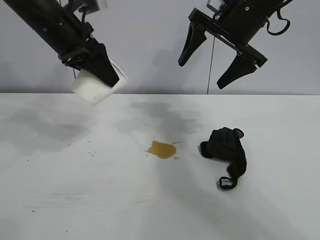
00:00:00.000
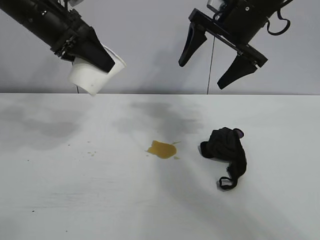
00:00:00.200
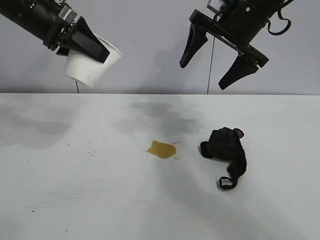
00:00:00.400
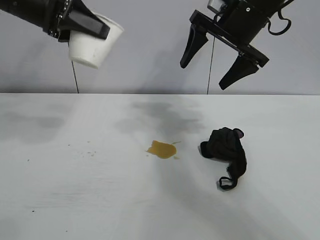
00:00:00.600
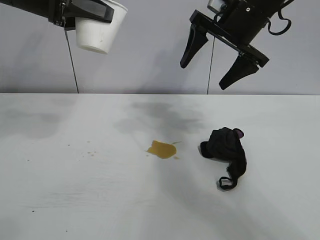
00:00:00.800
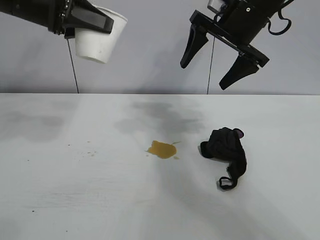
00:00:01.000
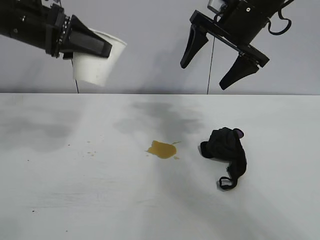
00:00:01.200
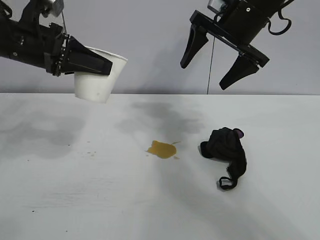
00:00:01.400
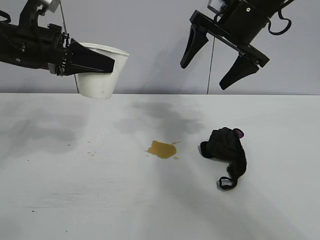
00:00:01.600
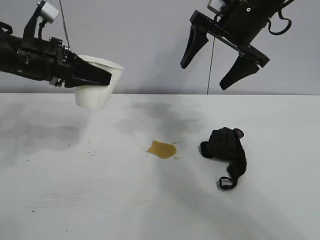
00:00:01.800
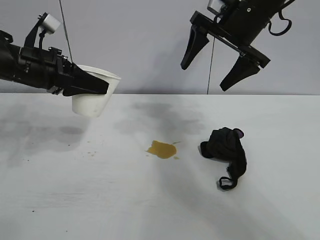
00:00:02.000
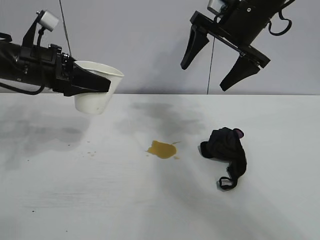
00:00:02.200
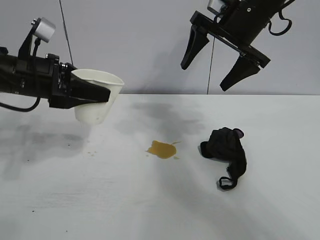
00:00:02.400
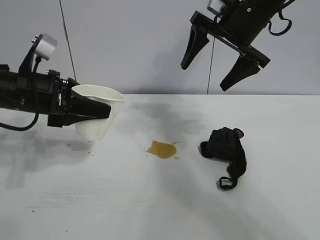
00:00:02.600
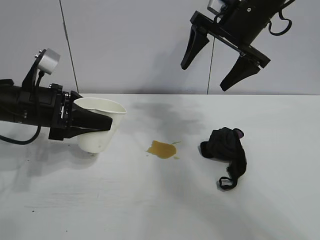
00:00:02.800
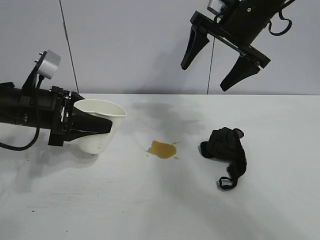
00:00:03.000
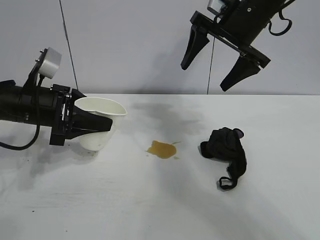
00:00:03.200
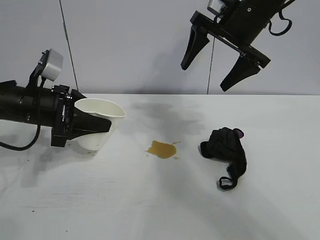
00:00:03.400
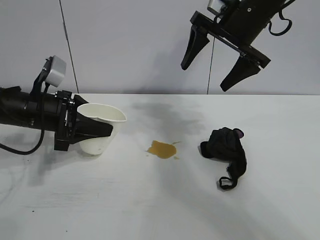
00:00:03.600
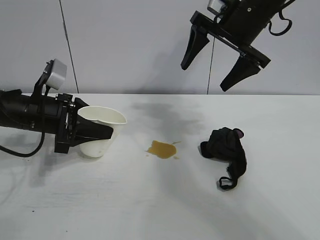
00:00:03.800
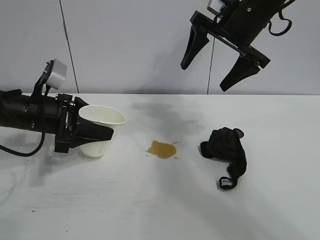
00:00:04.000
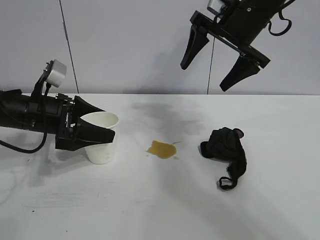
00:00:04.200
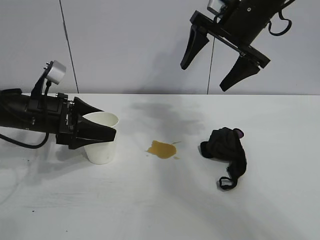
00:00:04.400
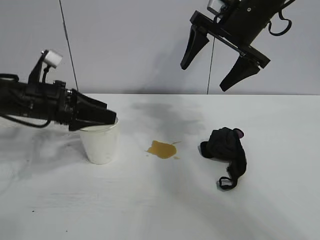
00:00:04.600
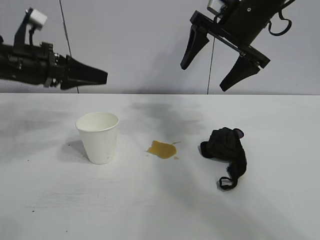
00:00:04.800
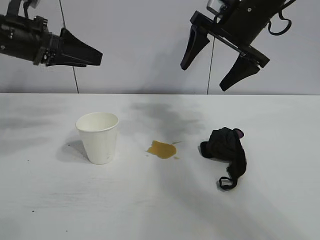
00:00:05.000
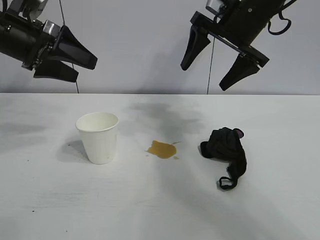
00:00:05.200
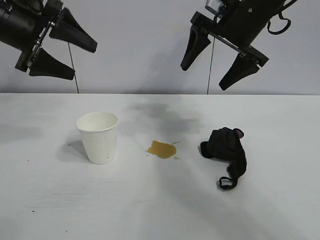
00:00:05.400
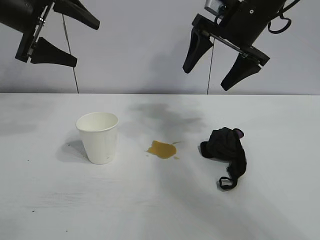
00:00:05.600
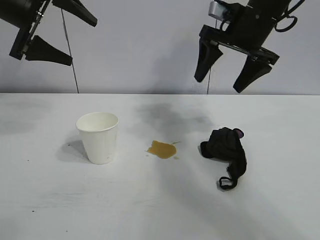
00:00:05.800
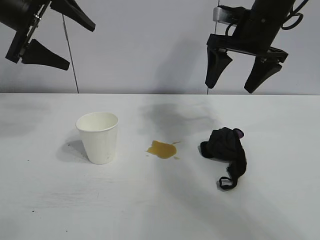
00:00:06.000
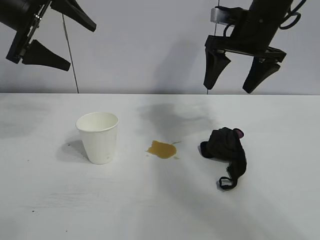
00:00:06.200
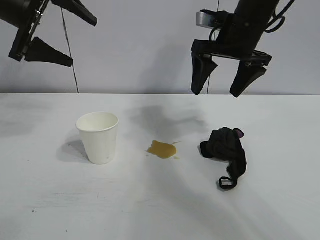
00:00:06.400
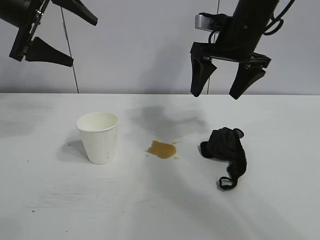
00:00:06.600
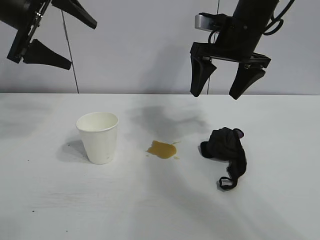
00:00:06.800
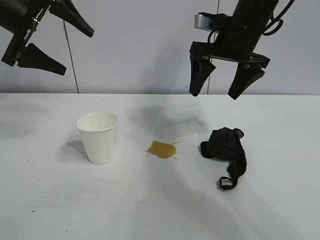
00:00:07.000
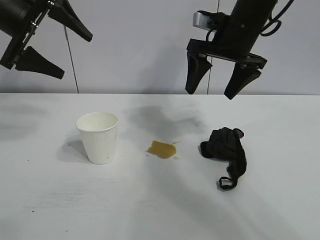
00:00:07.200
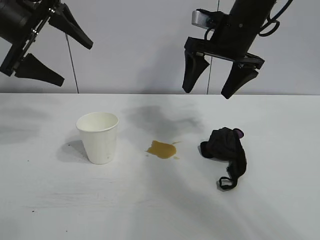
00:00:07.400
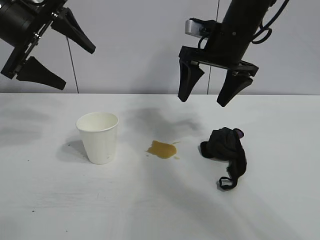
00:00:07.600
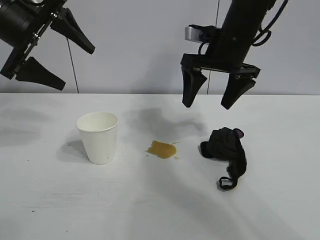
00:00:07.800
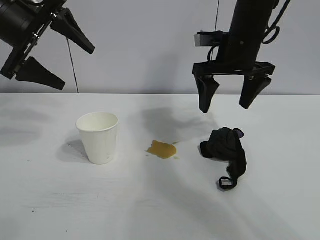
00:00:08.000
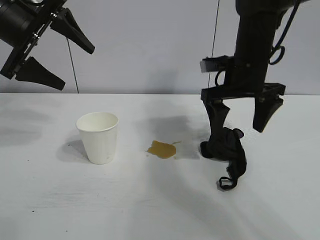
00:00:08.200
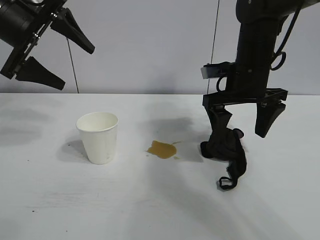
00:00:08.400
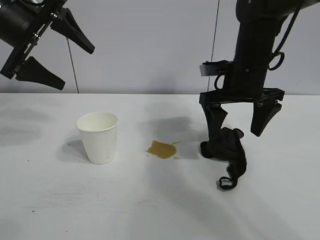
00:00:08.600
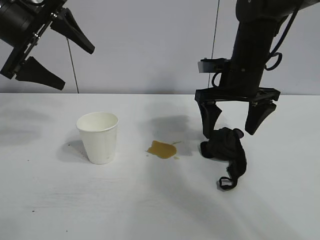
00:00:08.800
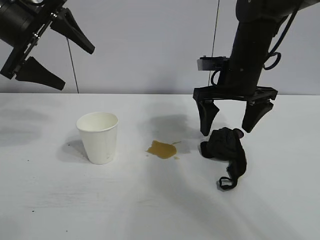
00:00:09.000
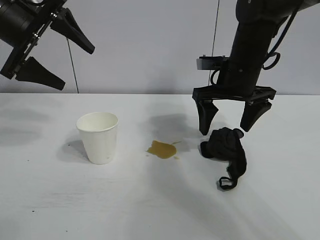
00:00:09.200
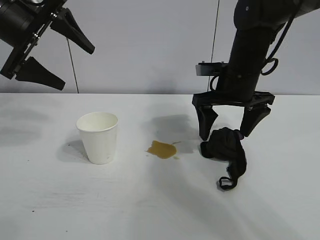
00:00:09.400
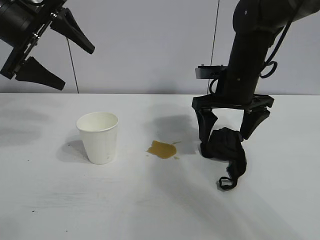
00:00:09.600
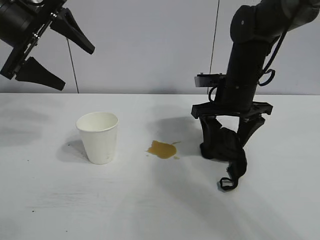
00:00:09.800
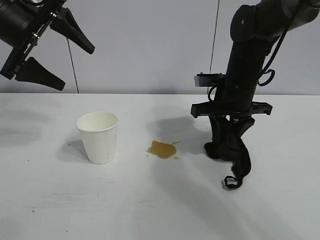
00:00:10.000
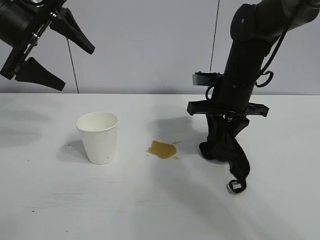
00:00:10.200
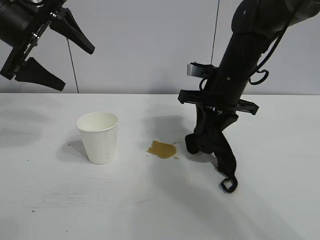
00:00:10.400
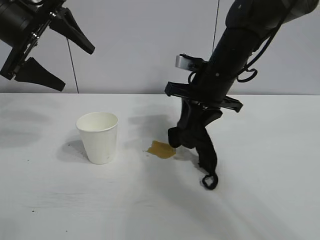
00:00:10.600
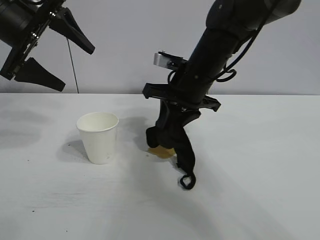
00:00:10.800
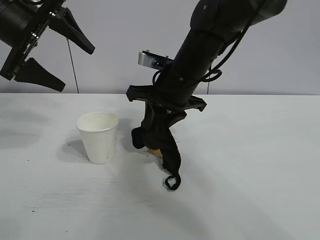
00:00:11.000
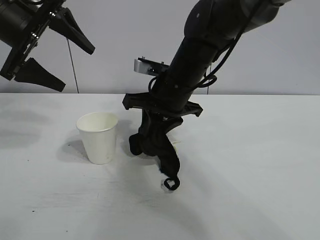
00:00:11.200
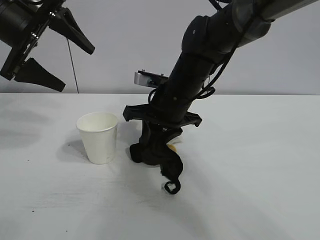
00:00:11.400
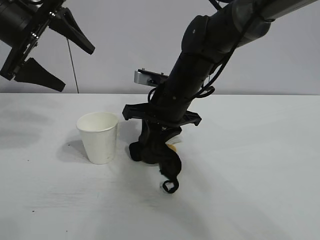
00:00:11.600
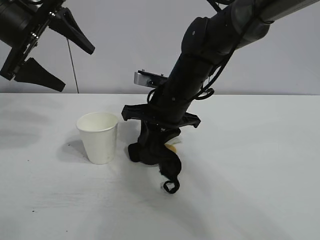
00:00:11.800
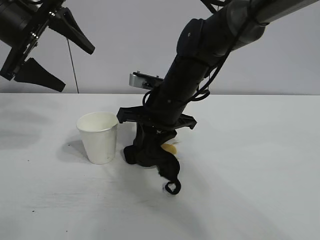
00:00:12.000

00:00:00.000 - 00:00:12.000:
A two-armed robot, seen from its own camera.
Task of the whole recording: the left gripper pick up the fallen cup and place it upright, the right gripper grasp the black rag and wipe the stain on the table, the right gripper put the black rag back in its original position.
Step, 00:00:00.000 - 00:00:04.000: Stand the paper cup upright with left gripper.
Step, 00:00:04.400 - 00:00:10.000: Grasp the rag with right gripper.

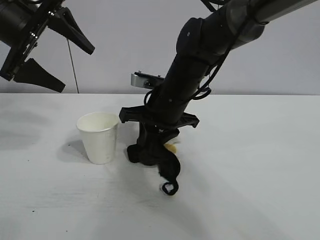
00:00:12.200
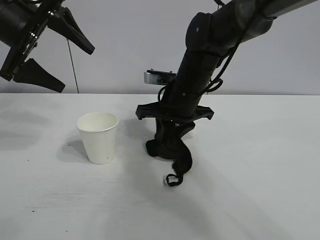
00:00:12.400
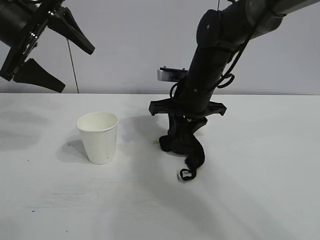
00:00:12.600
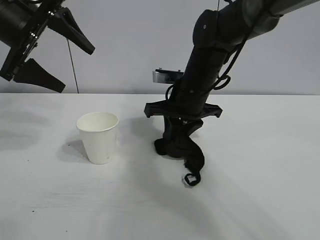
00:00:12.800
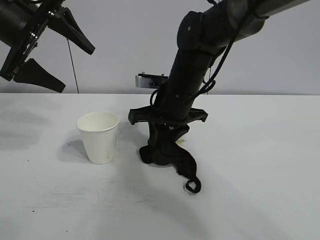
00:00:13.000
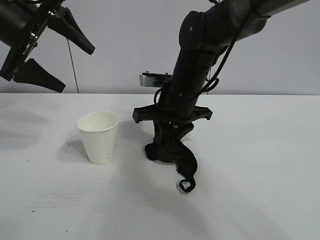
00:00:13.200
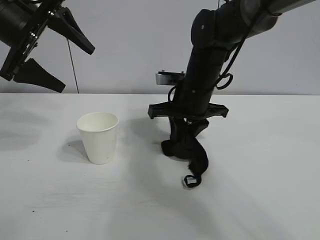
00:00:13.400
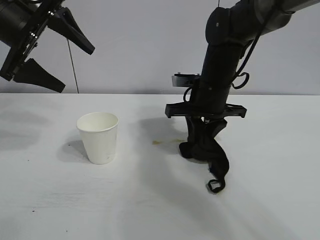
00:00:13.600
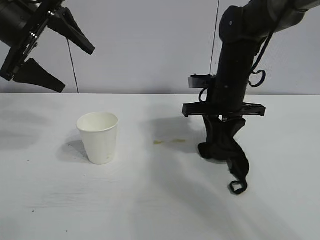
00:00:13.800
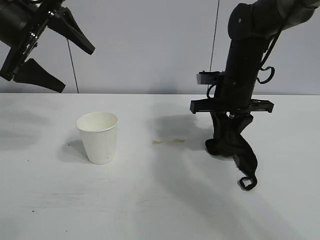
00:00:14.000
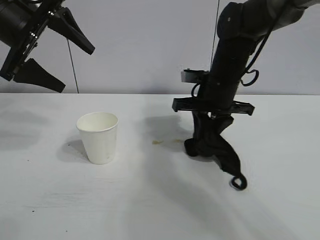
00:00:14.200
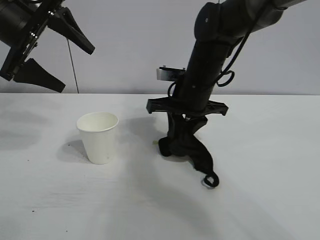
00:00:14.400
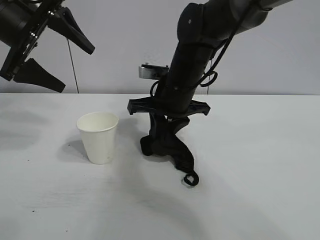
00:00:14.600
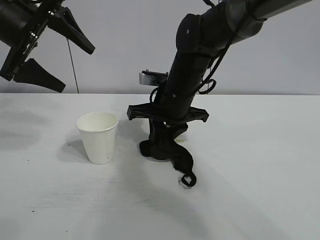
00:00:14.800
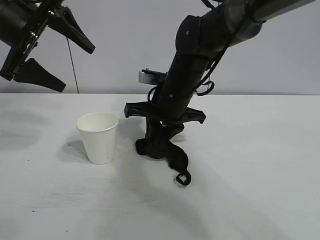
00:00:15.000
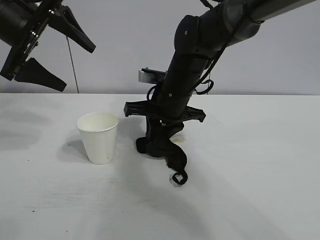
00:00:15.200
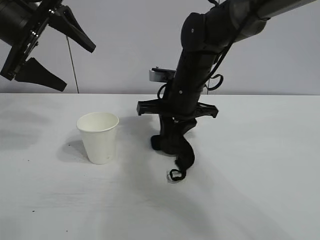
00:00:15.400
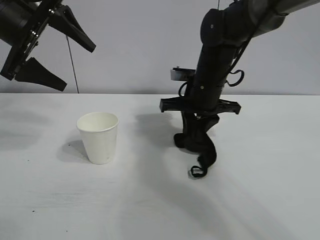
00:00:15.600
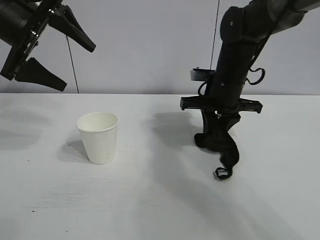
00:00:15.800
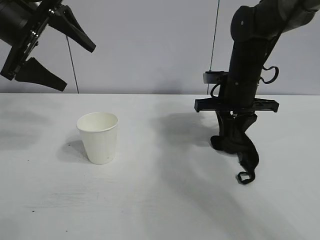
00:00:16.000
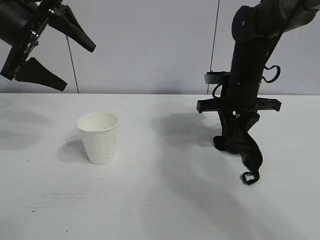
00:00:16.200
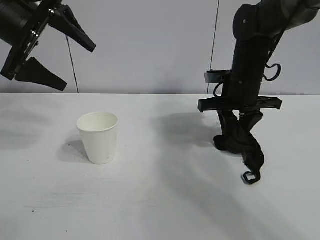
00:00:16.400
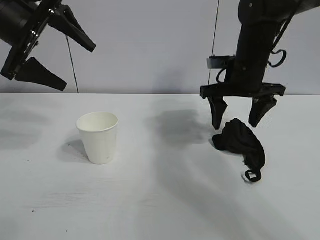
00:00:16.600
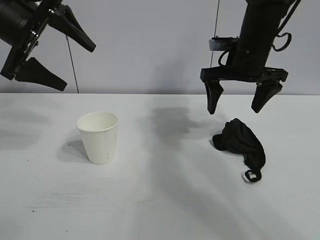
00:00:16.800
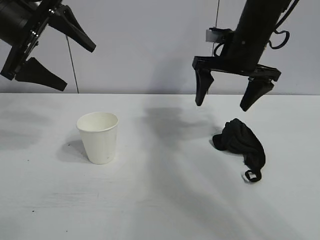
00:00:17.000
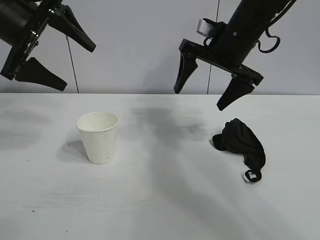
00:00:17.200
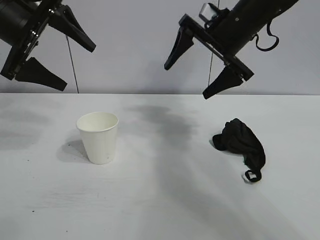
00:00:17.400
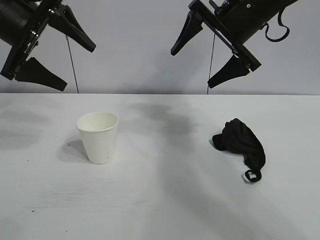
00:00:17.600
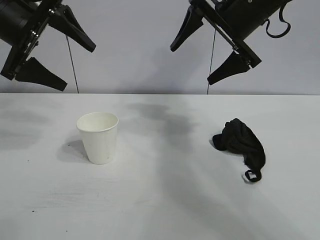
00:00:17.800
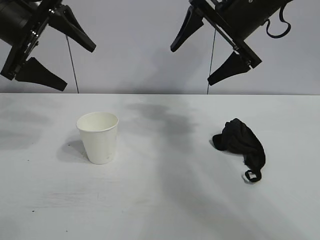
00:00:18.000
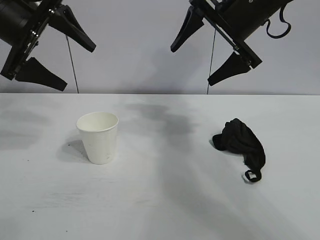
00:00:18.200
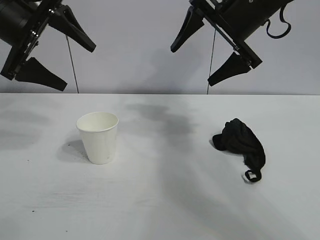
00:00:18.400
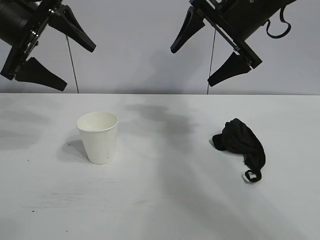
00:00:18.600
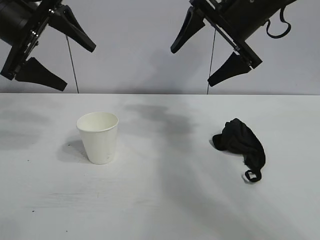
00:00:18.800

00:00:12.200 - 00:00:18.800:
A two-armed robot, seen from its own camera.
Task of the whole recording: the left gripper pick up the fallen cup and place it upright, the right gripper grasp the black rag and wipe the stain on the table, the right gripper put the black rag back in its original position.
Step, 00:00:12.200 - 00:00:16.000: Wipe the stains off the table with the rag with right gripper.
Step, 00:00:16.200 - 00:00:16.400: Place the rag on the table with right gripper.
